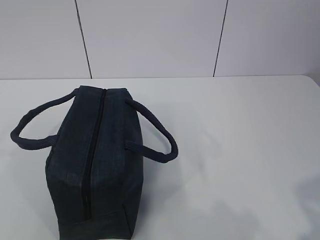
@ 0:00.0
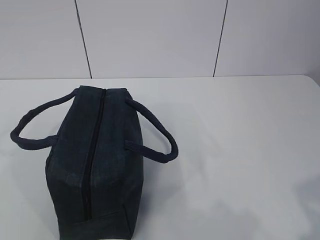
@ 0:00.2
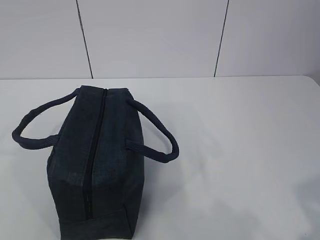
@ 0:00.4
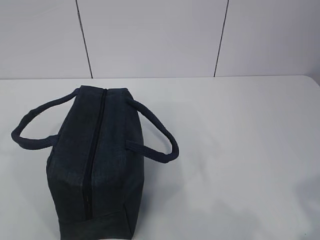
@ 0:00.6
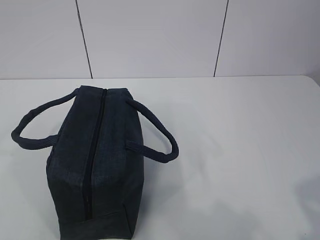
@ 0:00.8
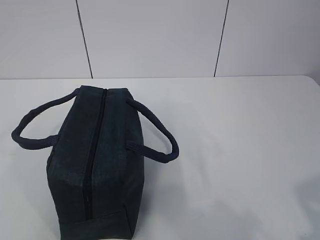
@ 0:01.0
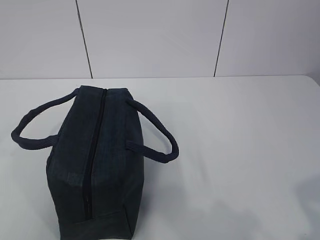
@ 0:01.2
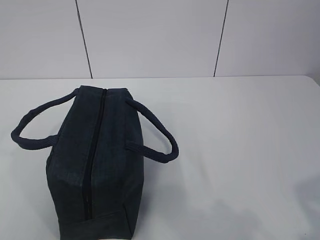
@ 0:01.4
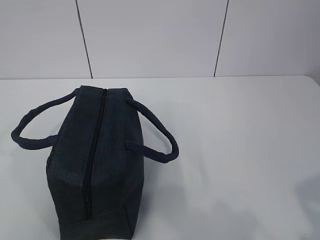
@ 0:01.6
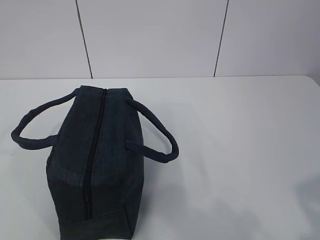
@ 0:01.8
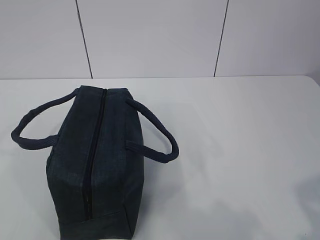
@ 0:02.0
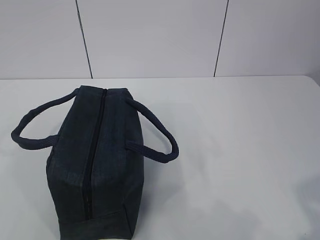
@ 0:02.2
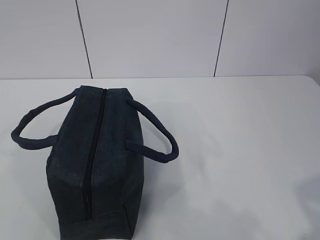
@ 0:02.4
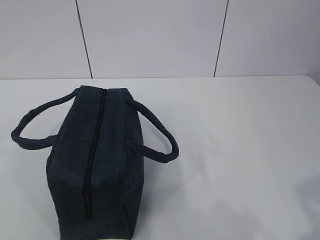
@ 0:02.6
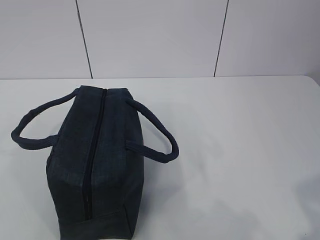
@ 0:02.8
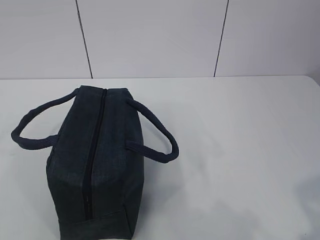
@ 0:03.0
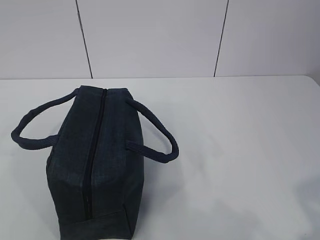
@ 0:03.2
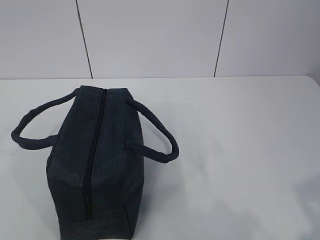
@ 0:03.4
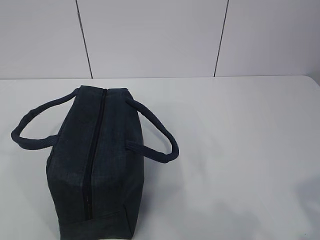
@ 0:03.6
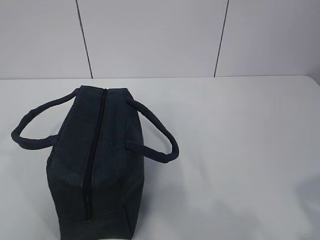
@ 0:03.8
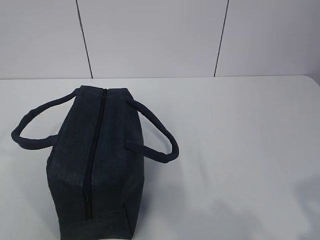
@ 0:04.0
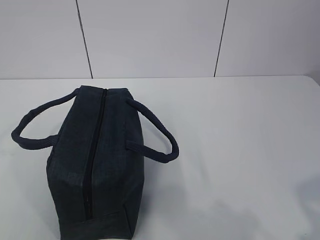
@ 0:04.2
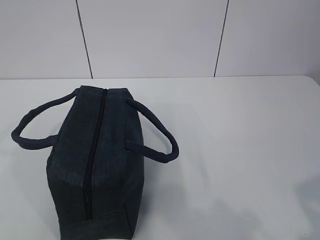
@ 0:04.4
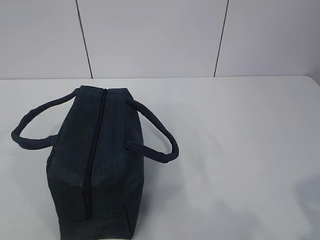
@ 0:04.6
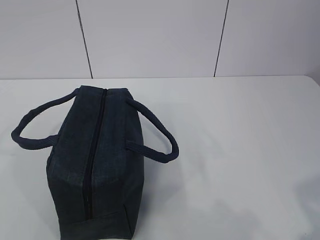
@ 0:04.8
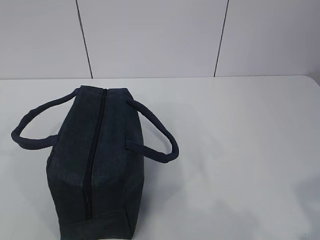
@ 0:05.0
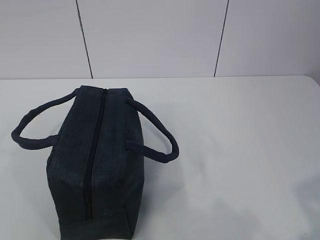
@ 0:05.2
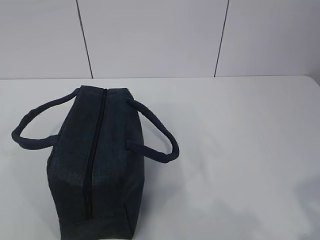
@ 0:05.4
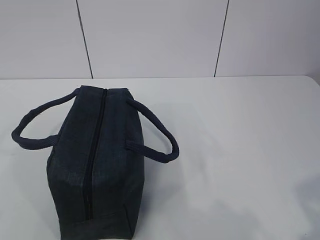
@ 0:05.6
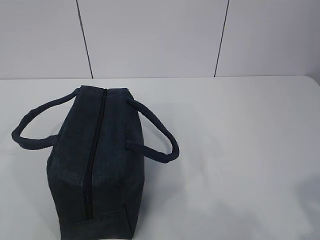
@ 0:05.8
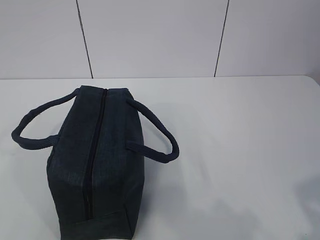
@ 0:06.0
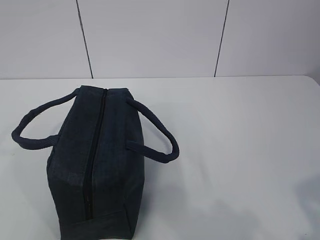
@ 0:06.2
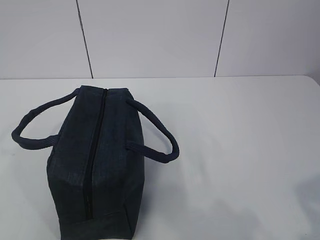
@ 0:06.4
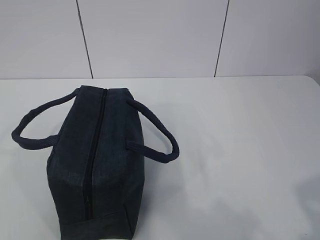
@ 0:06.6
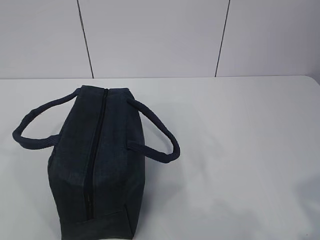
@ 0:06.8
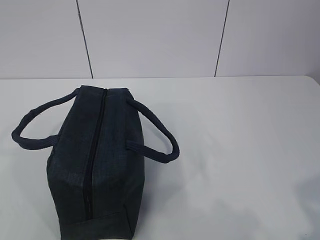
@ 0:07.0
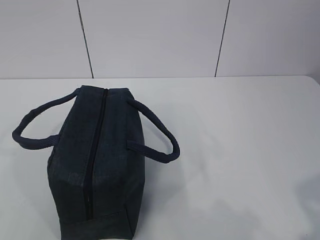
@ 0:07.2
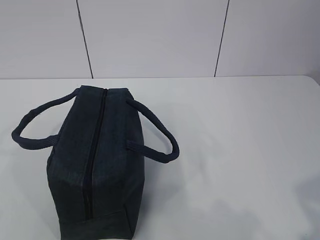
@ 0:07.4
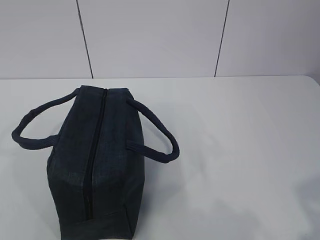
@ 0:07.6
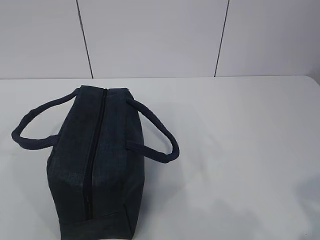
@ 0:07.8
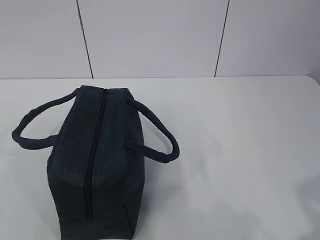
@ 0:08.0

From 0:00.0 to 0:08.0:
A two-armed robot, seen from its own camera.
From 0:00.0 to 0:08.0: Both grippers stay about where they are.
